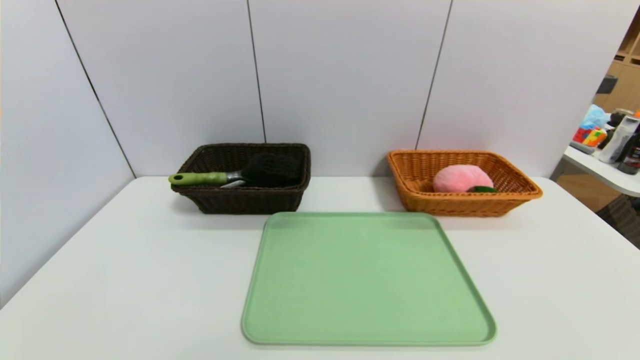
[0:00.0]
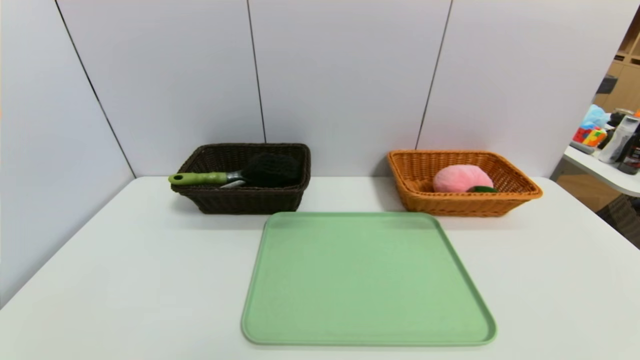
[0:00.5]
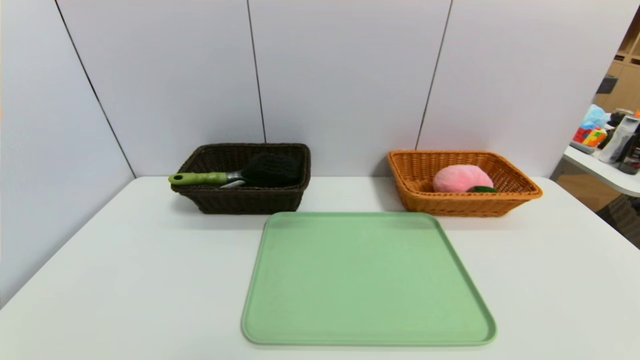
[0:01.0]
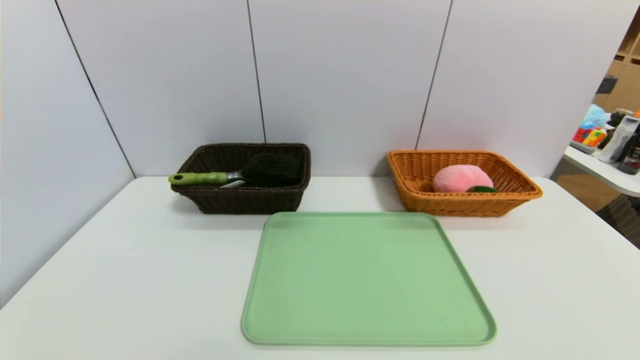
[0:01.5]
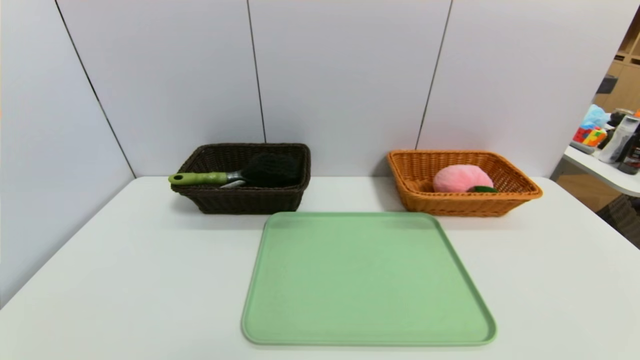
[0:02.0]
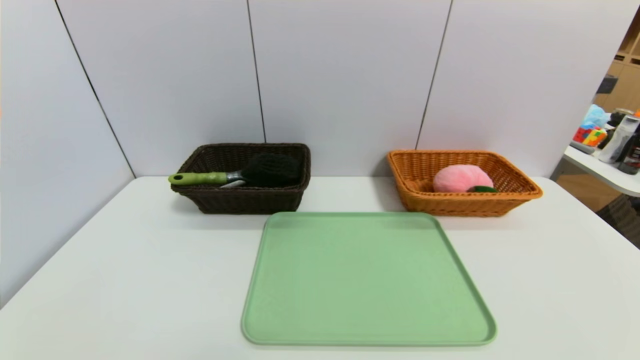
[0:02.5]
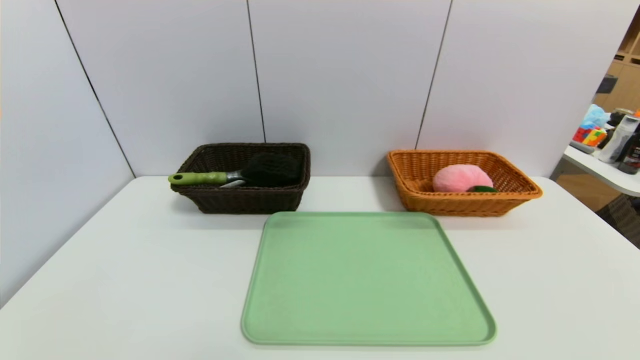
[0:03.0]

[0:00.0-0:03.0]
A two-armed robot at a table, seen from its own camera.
Task of the whole recording: place the food in the right basket with the right gripper, and place the non food items in the left basket with the left gripper.
0:00.0 to 0:01.5: Both grippers stay put.

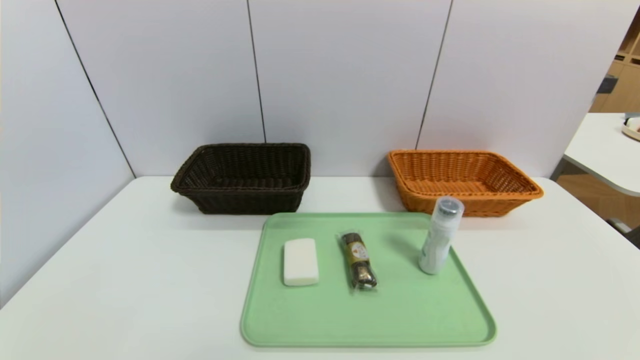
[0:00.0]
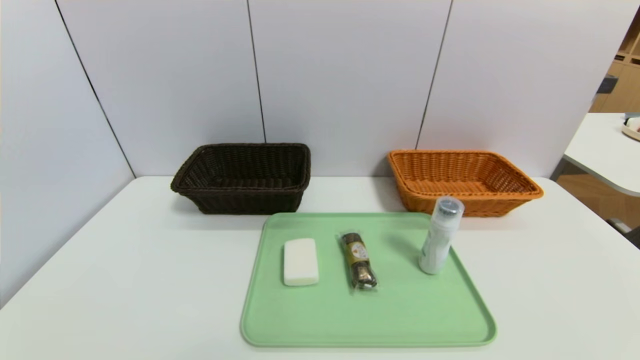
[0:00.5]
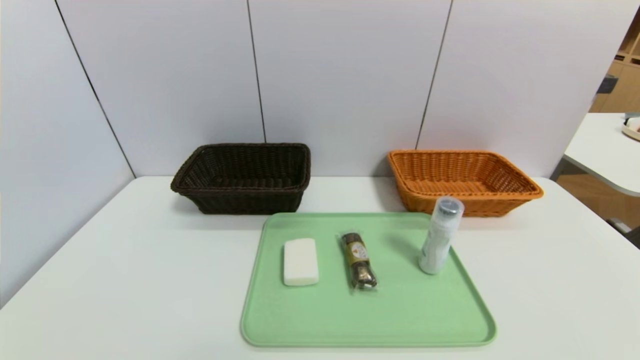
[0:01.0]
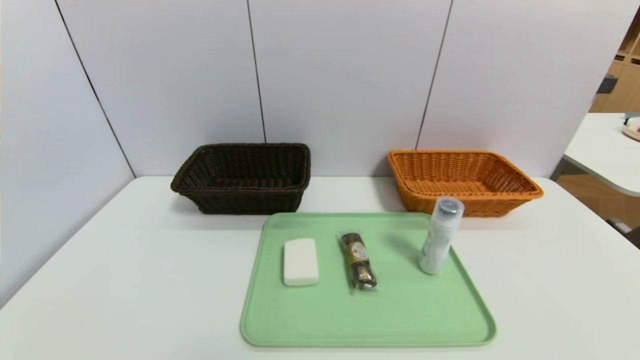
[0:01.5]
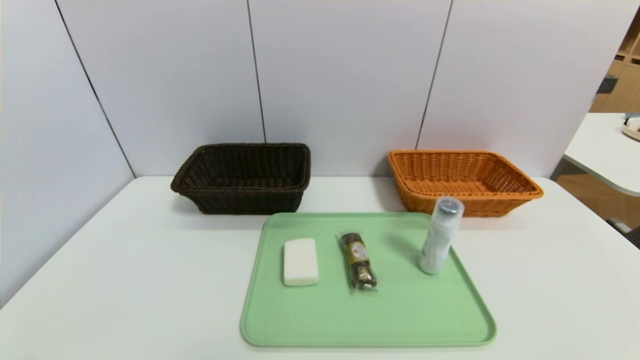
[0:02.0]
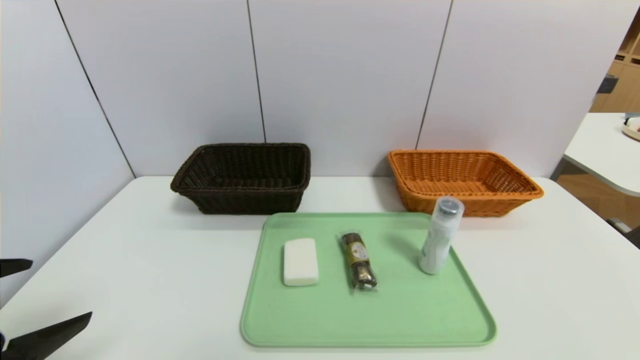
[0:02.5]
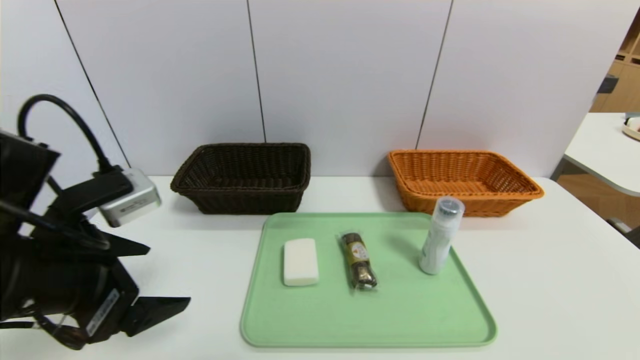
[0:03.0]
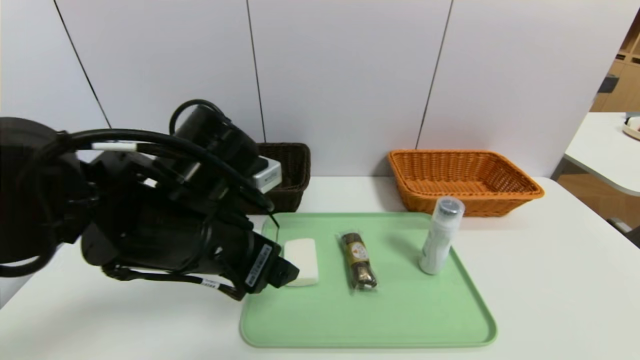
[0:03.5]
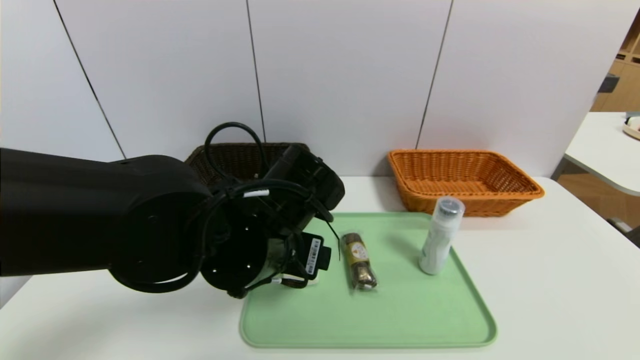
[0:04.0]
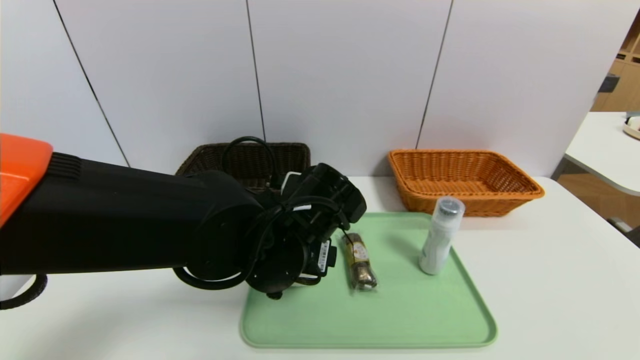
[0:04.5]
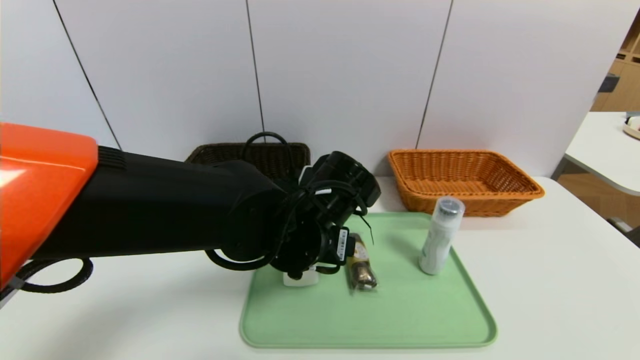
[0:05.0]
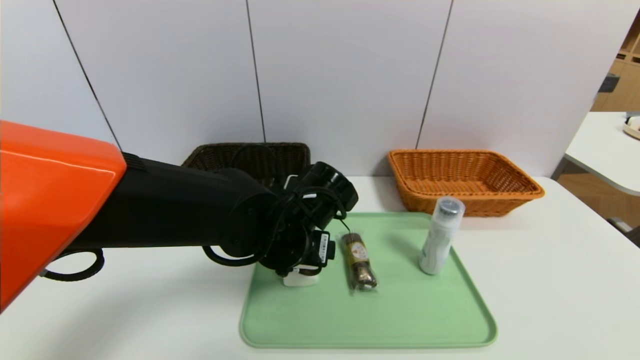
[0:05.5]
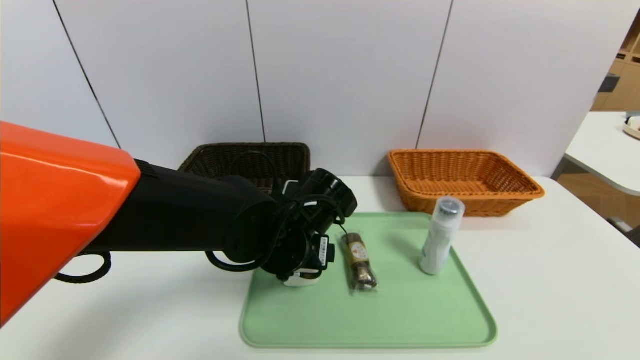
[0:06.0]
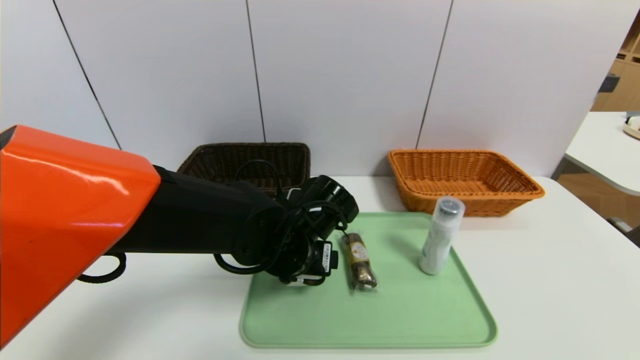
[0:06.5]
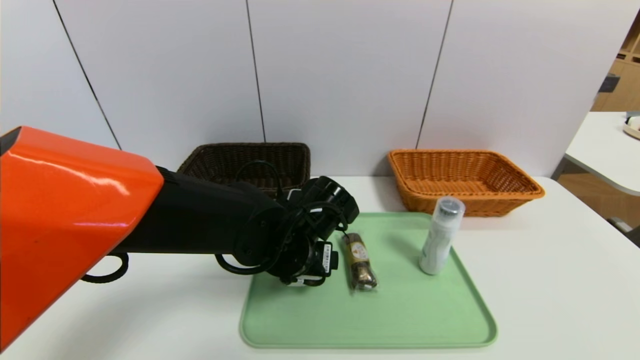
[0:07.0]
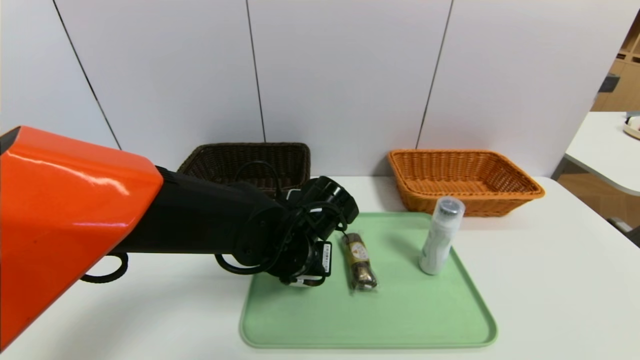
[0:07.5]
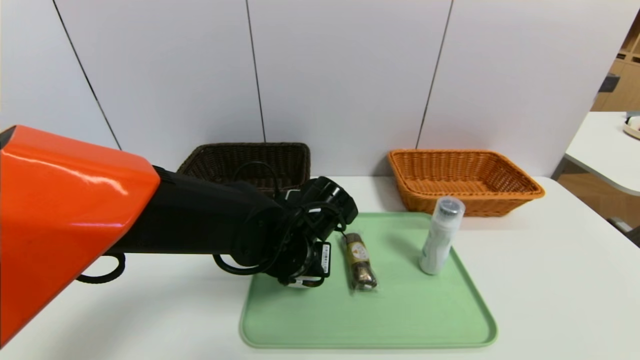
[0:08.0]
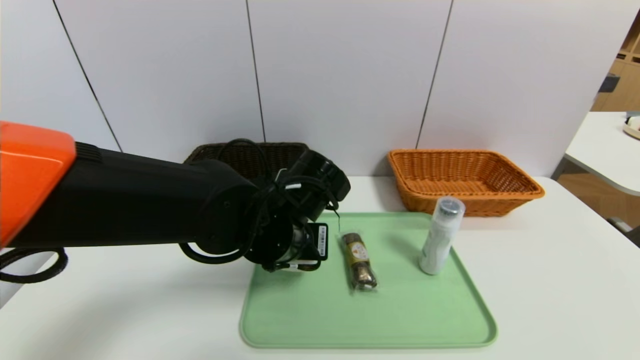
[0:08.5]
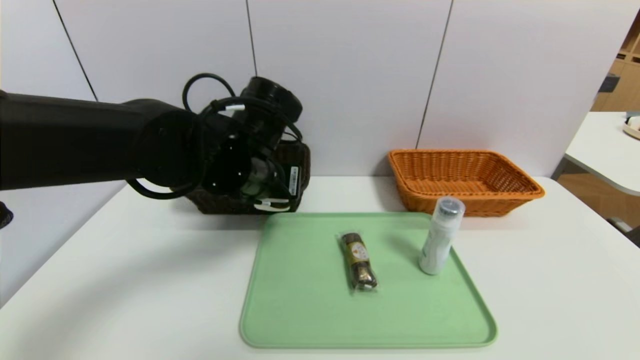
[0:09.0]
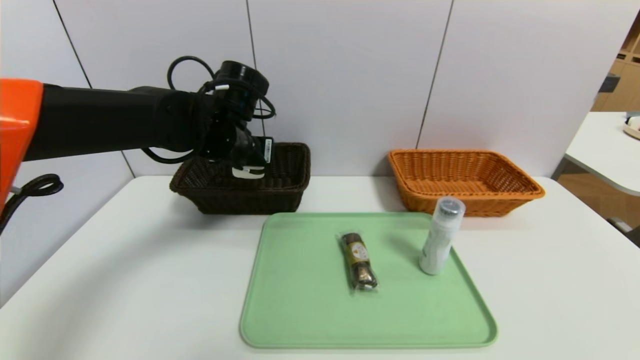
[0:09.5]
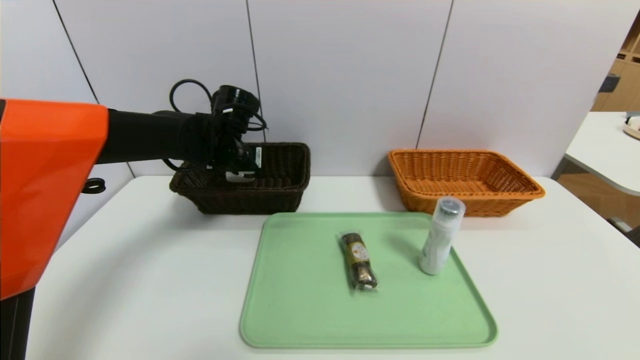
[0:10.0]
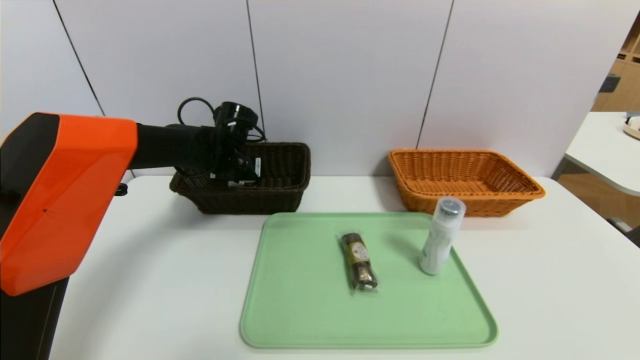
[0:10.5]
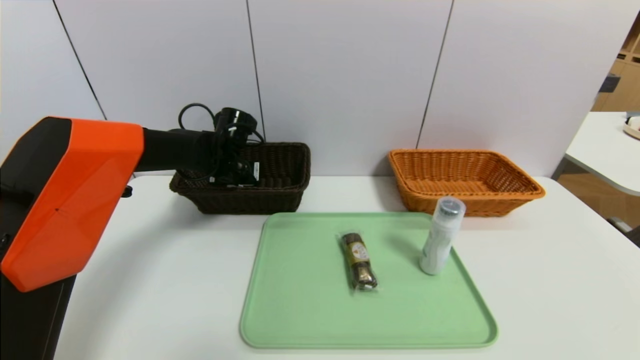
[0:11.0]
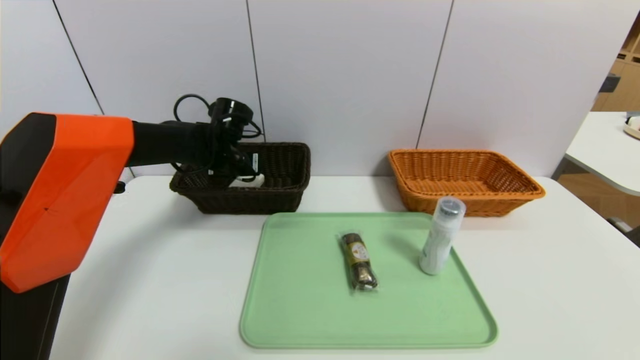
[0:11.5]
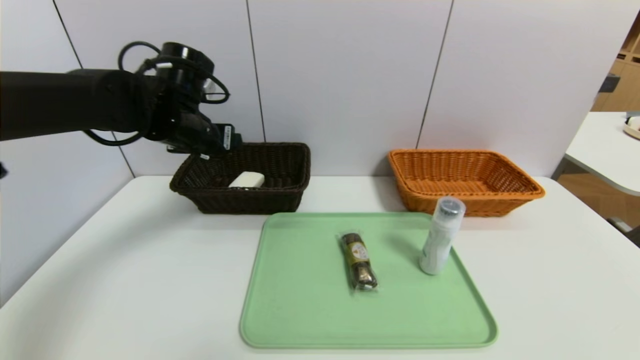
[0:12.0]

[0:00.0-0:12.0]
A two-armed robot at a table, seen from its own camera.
Task of the whole recording: place the food in the right basket with the right gripper, and place the non food items in the left basket with the left gripper.
Step, 0:00.0 to 0:11.5: Grasp the soap and put it in the left basket.
0:02.0 to 0:04.0: The left gripper is displaced to the right and forward by roughly 35 cm.
0:04.0 to 0:06.0: The left gripper is displaced downward by about 5 cm.
0:06.0 to 0:08.0: The left gripper closes up.
0:08.0 to 0:10.0: The left gripper goes approximately 20 cm forward, to the left and upward.
0:10.0 to 0:12.0: The left gripper heads upward, covering some 5 cm, and opens up.

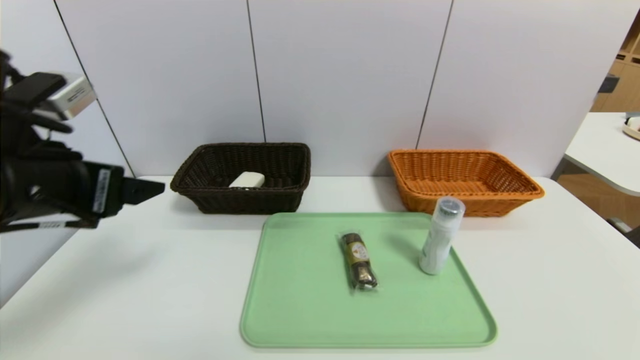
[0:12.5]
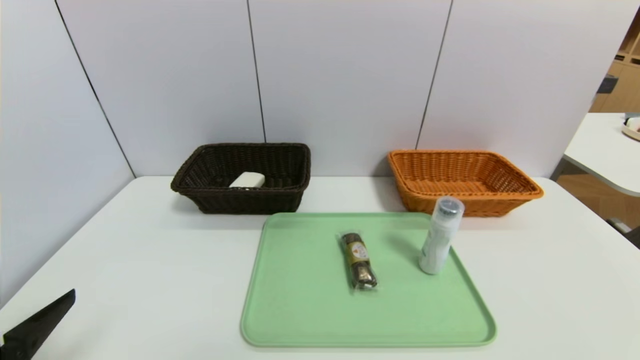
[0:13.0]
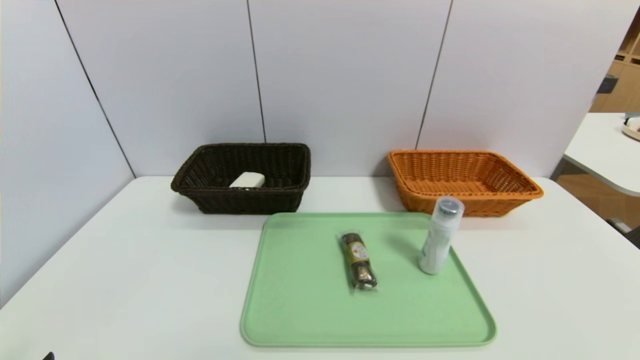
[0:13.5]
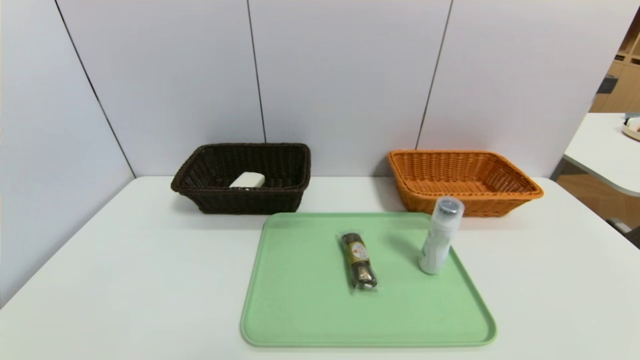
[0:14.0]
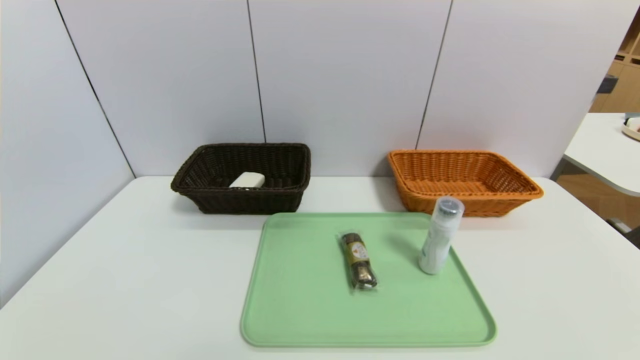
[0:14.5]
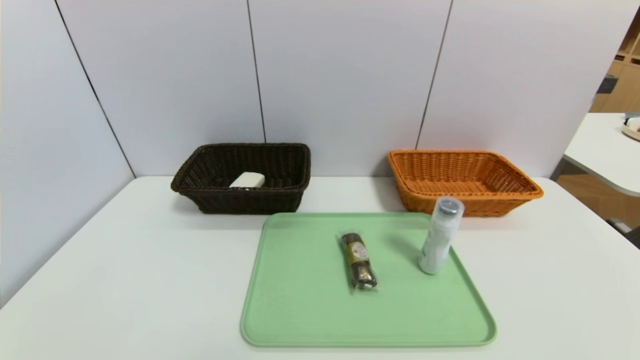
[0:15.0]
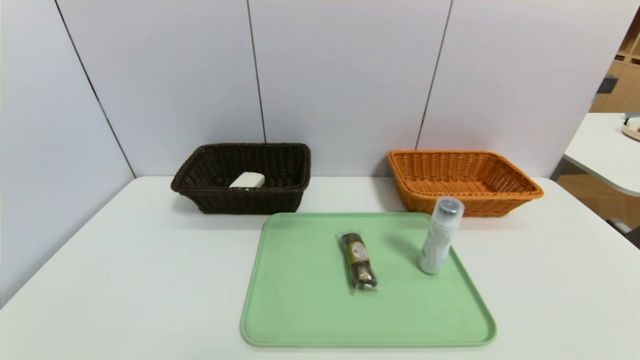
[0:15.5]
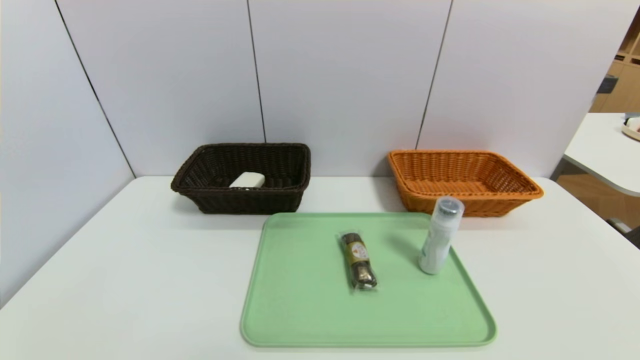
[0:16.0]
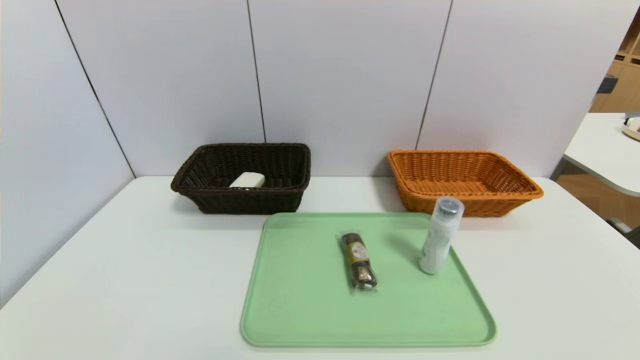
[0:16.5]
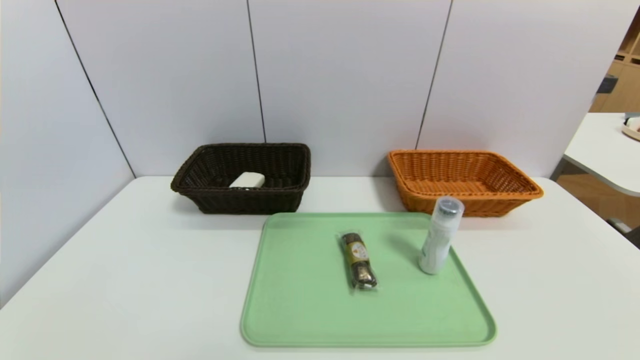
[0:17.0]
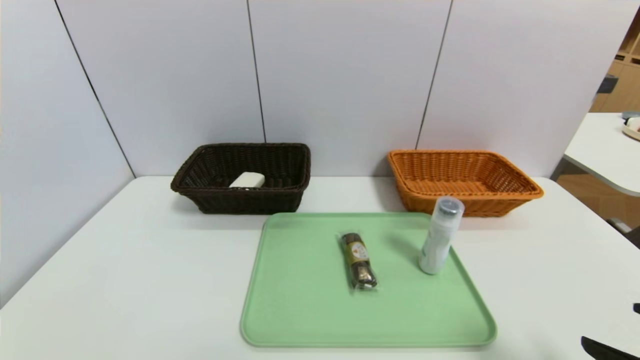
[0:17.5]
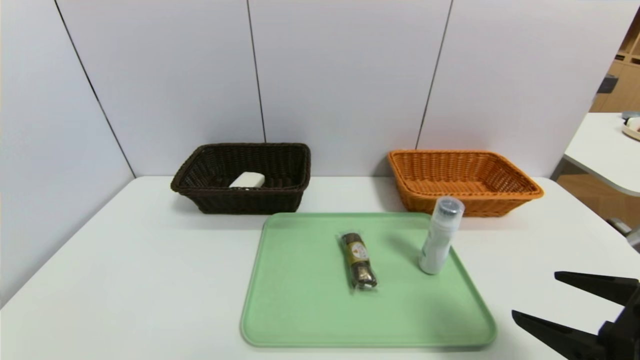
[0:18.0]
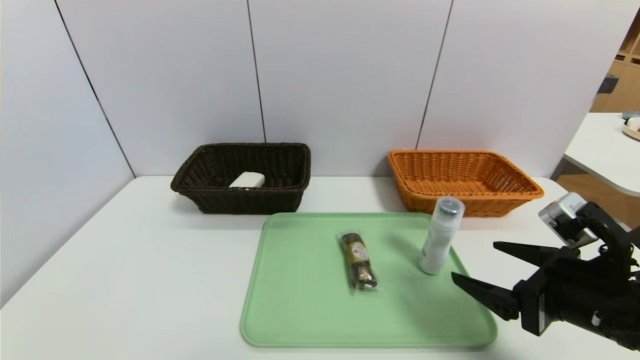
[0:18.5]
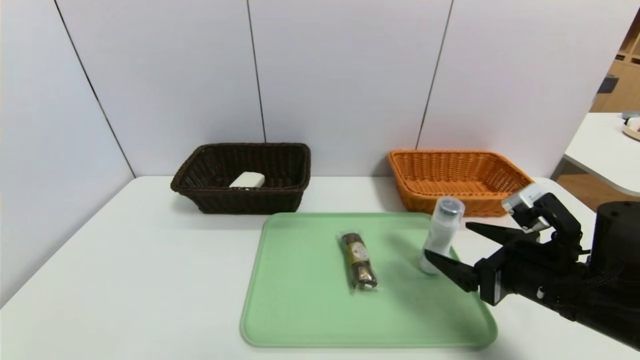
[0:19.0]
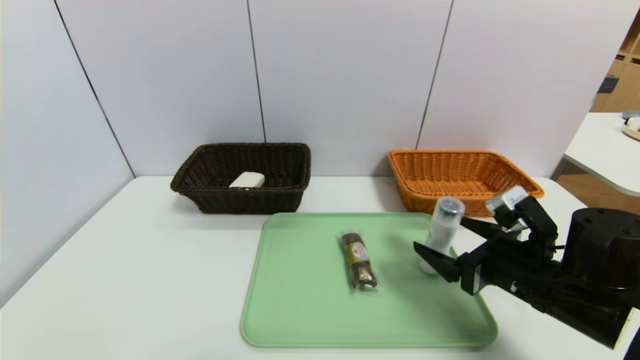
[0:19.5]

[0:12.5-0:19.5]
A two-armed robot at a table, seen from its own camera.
Task of the whole recording: place the food in the right basket with the right gripper, and place the non food items in the left basket with the left gripper.
0:12.5 to 0:14.5: The left gripper is displaced downward and backward by some 30 cm.
0:14.5 to 0:16.0: Both grippers stay about where they are.
0:16.0 to 0:17.5: The right gripper is displaced upward and forward by roughly 15 cm.
0:17.5 to 0:19.5: The right gripper heads forward and to the left, covering roughly 20 cm.
